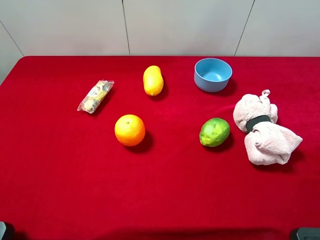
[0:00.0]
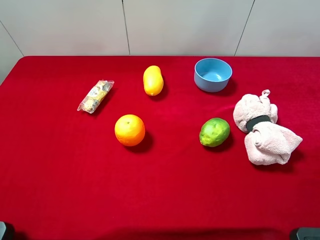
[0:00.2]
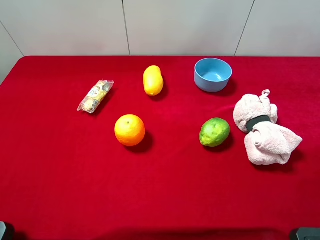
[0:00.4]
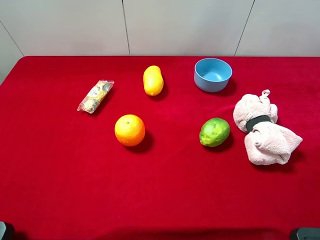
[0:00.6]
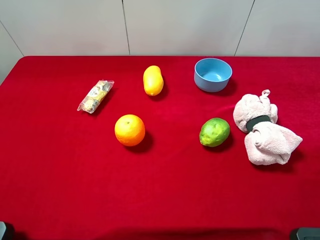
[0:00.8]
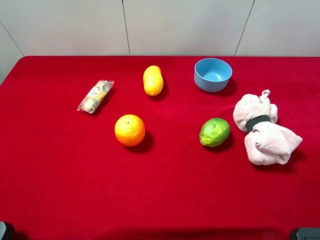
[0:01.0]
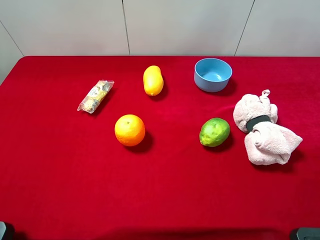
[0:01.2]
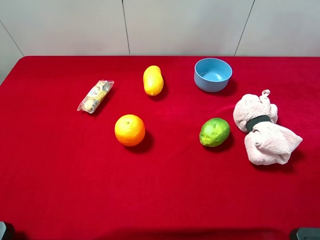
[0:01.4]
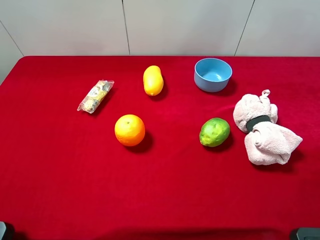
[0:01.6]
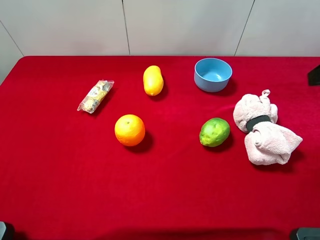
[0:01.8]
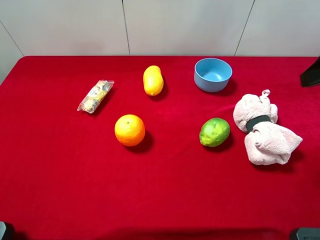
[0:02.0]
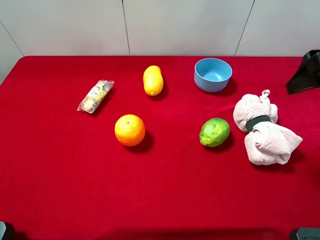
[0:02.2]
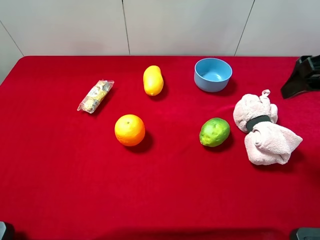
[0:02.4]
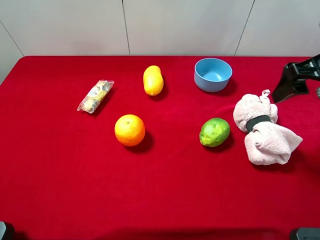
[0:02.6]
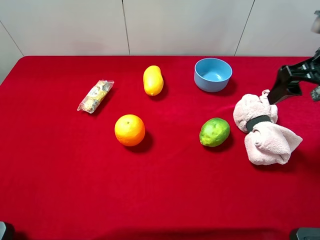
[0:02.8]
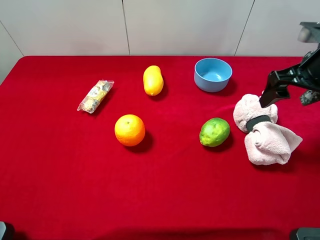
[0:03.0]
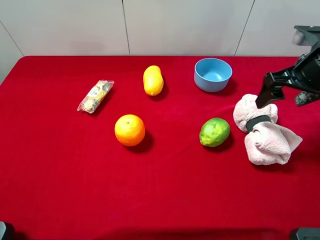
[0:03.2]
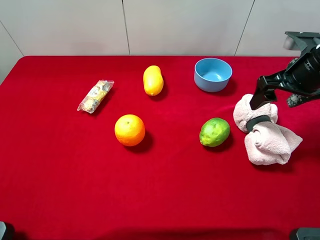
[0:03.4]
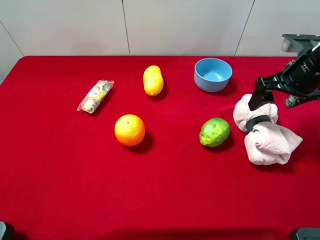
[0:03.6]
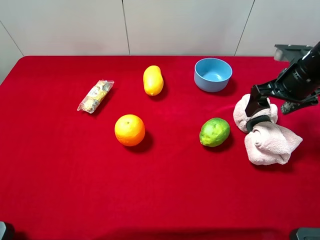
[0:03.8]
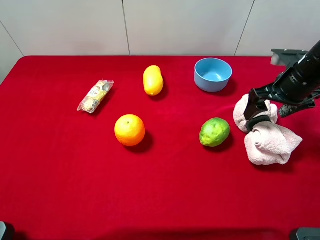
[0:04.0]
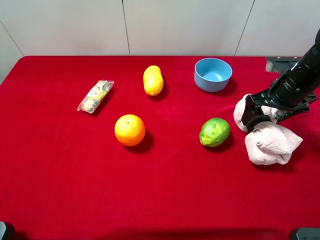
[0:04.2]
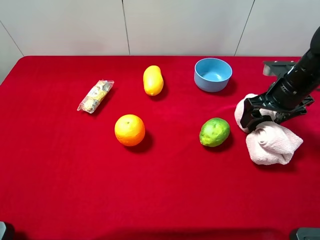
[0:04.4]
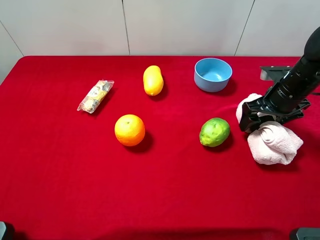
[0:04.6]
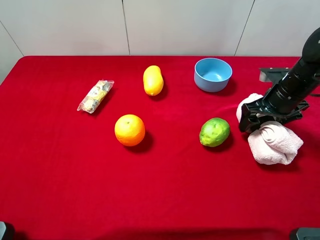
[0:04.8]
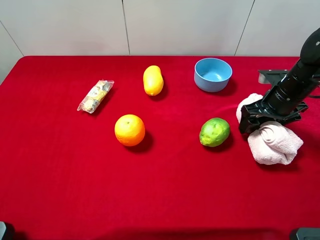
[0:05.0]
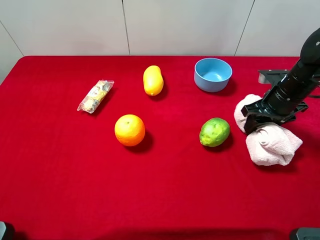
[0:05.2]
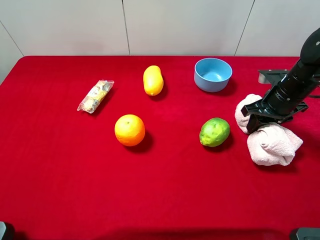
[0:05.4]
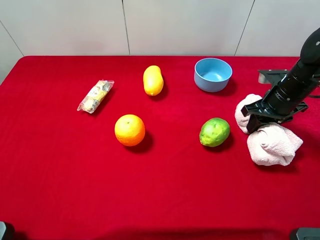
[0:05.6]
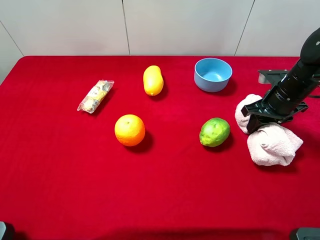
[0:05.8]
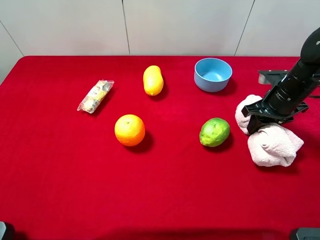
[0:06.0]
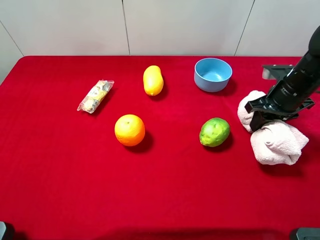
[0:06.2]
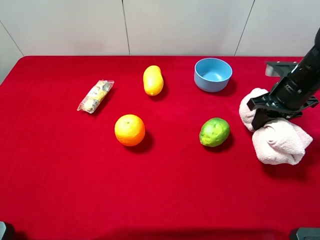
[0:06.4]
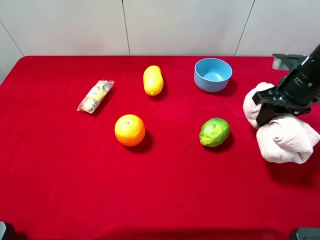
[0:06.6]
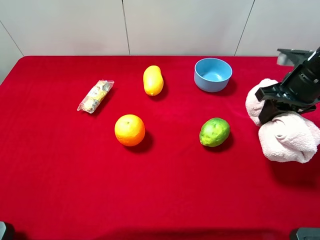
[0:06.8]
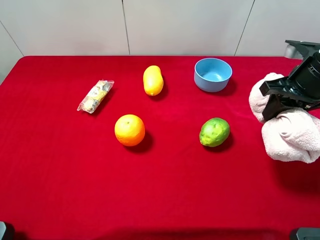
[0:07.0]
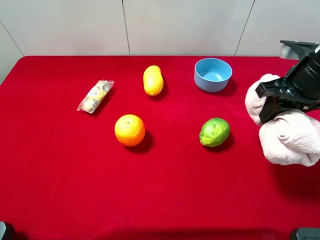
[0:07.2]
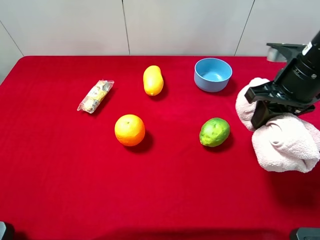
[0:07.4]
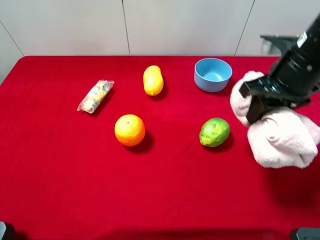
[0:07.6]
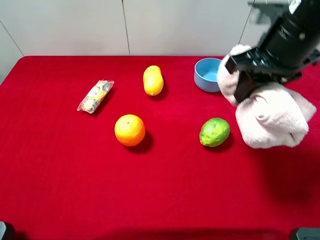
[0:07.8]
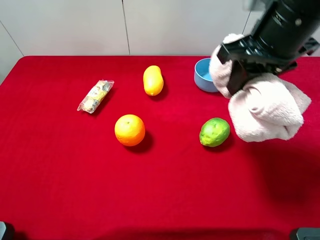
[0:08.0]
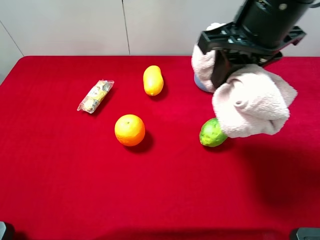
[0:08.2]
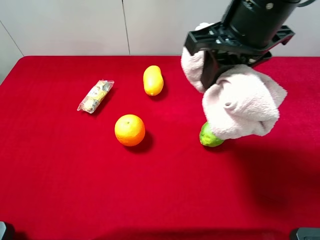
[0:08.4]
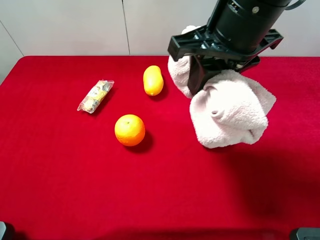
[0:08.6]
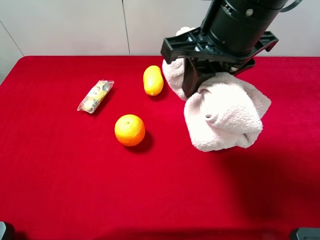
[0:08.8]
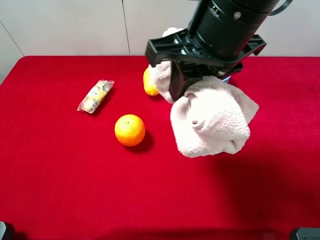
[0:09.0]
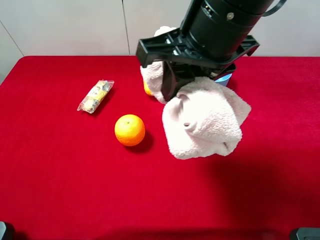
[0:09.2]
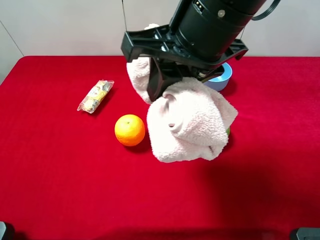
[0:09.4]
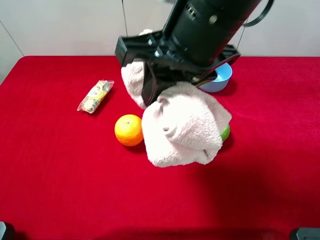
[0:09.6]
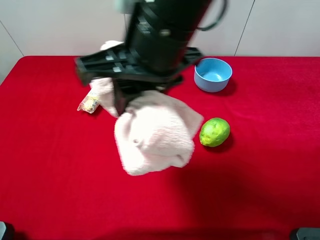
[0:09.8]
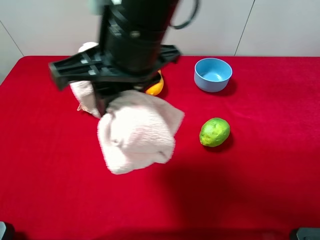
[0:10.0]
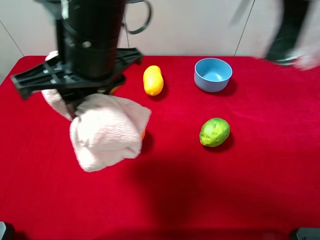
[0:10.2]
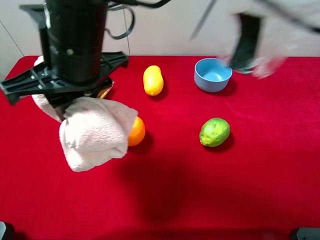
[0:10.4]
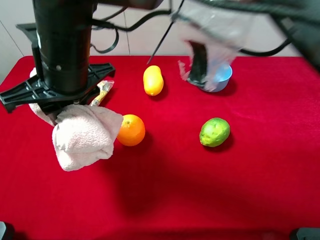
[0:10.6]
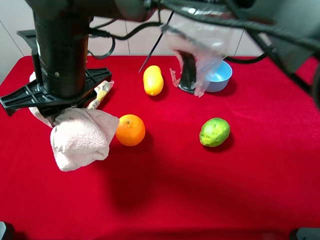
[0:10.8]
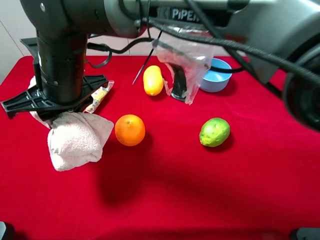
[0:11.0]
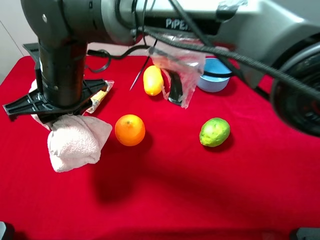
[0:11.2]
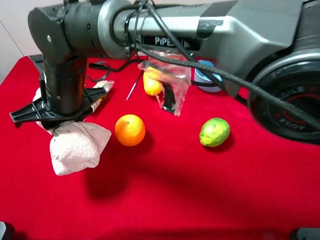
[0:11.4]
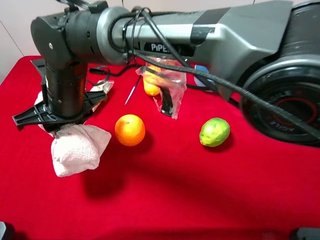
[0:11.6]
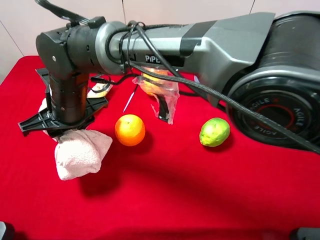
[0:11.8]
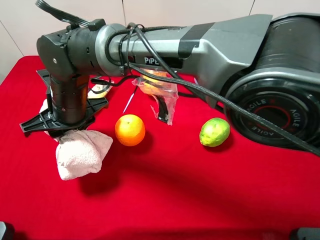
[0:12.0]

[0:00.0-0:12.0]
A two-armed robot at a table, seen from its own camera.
Task of the whole recording: the gripper move the object.
Step, 0:00.0 to 0:05.2: Grasp the pink towel with the right gripper.
0:01.6 to 0:03.0: The right gripper heads forward and downward, covering approximately 15 cm.
0:03.0 to 0:04.4: The right gripper moves downward, about 10 cm.
0:04.4 to 0:06.0: The right gripper closes.
0:06.0 to 0:07.6: The right gripper travels upward, to the left and backward by some 15 cm.
0:07.6 to 0:09.0: The right gripper travels to the left and upward by some 15 cm.
0:09.0 to 0:10.4: The right gripper goes roughly 15 cm to the left.
0:10.4 to 0:12.0: The right gripper is displaced downward and to the left by about 15 cm.

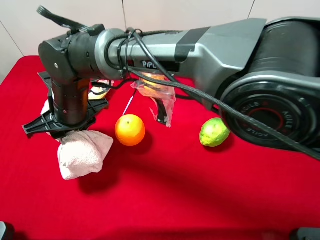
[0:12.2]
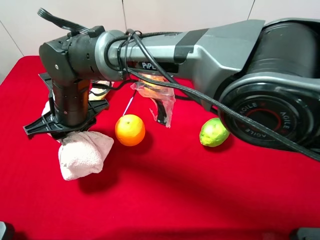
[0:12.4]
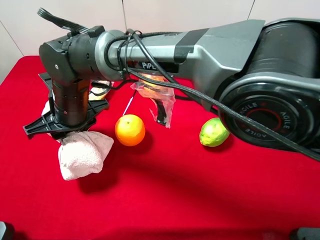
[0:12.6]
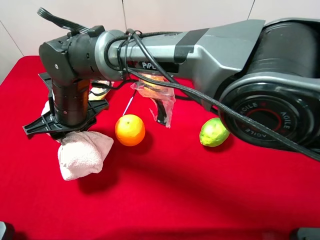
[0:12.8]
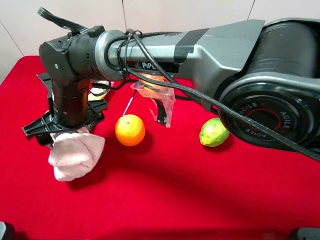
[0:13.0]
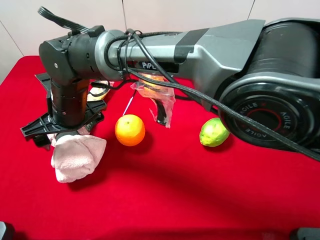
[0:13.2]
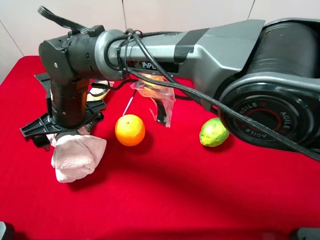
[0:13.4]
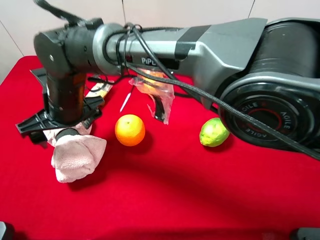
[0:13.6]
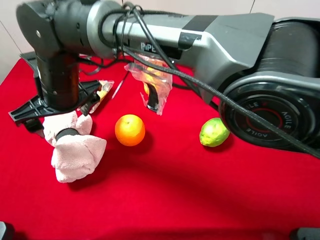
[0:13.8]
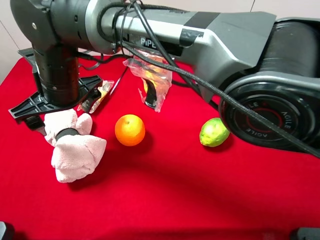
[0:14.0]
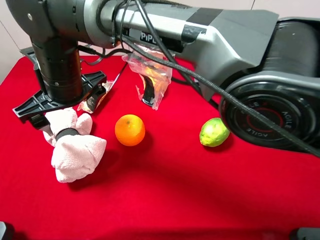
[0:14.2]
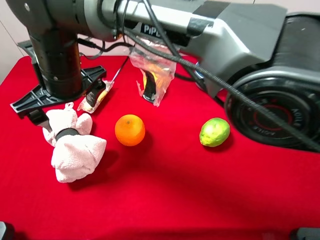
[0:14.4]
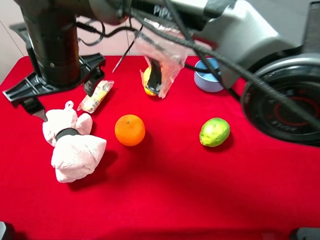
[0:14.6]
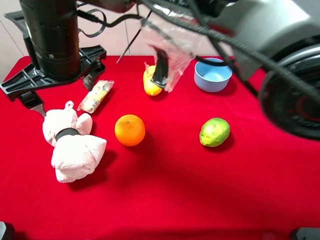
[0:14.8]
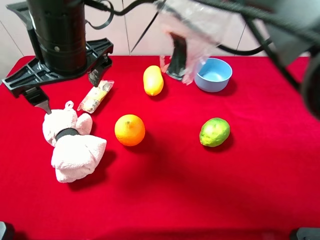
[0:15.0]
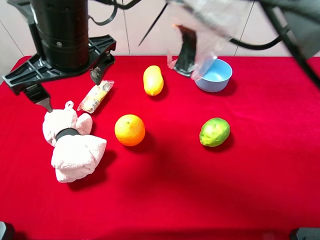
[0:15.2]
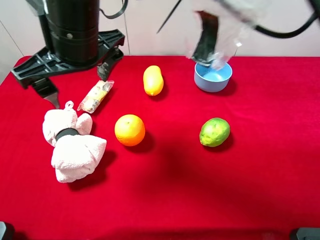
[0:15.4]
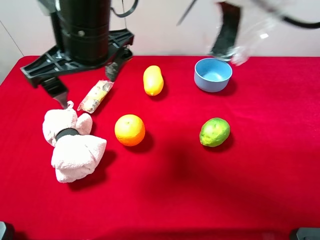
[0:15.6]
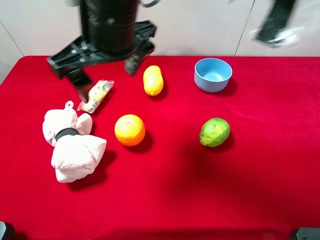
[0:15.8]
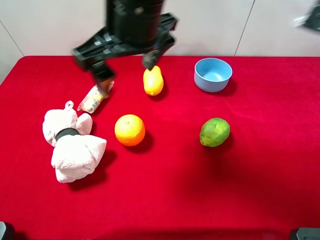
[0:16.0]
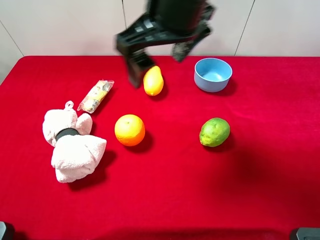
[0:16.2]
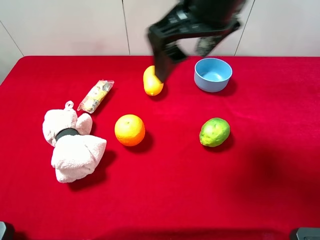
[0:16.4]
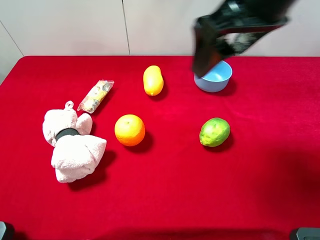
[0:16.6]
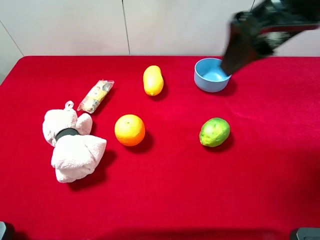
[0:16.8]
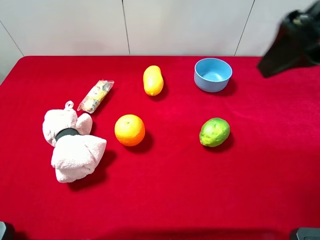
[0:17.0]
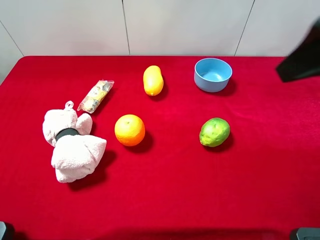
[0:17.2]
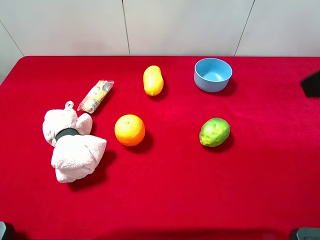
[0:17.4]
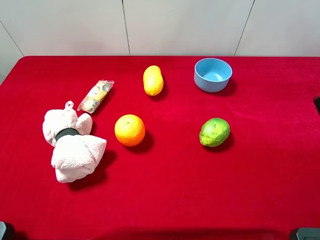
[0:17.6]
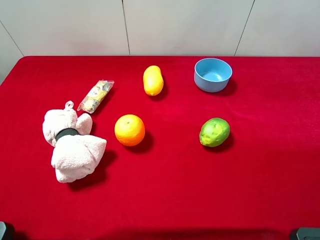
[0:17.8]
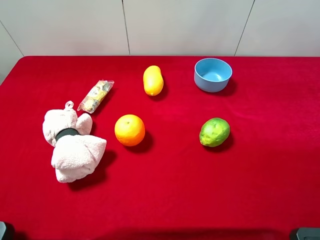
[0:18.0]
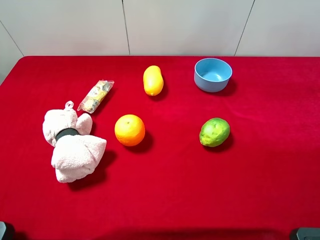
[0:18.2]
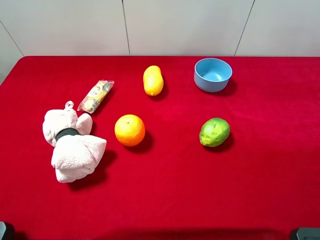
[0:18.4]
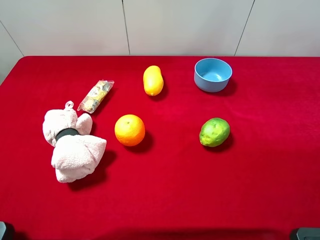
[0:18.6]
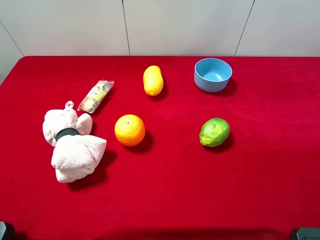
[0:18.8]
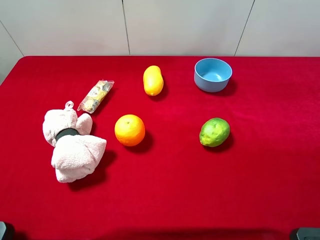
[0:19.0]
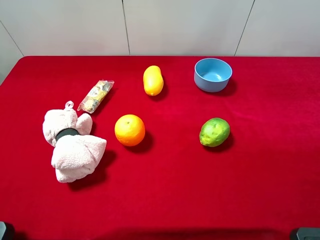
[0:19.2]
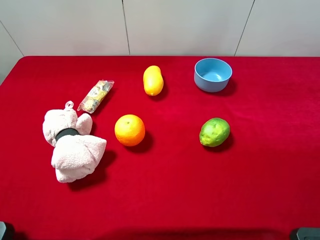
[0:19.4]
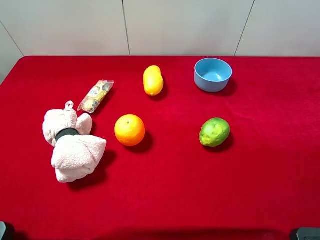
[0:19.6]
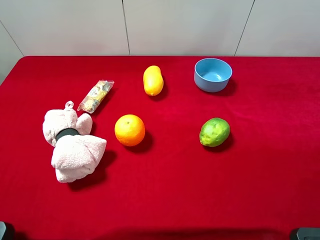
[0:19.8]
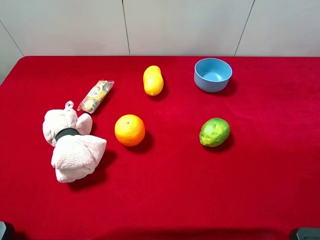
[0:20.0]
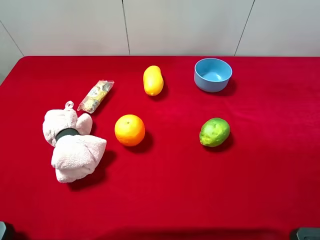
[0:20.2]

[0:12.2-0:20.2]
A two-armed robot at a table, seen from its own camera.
Task of the whole recording: the gripper move the object.
0:12.2 to 0:13.8: The right gripper opens up.
0:13.8 to 0:15.4: The right gripper heads upward and to the right, covering roughly 10 cm.
0:15.4 to 0:17.0: The right gripper heads to the right, covering some 30 cm.
0:17.0 to 0:18.6: The right gripper is displaced backward, to the right and downward by approximately 20 cm.

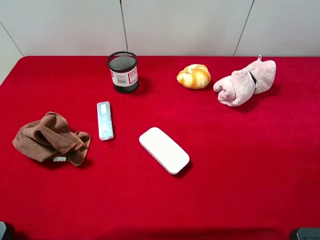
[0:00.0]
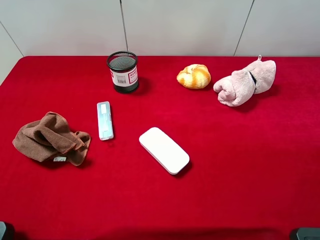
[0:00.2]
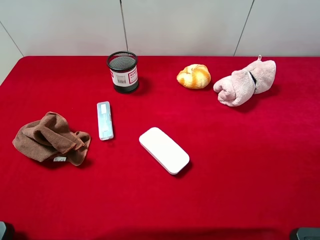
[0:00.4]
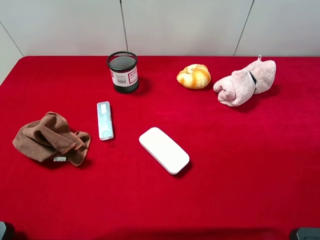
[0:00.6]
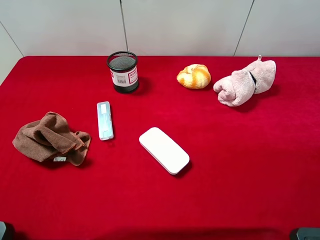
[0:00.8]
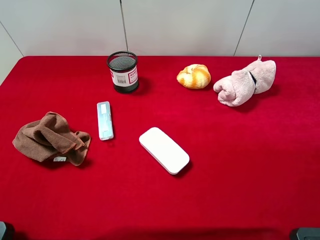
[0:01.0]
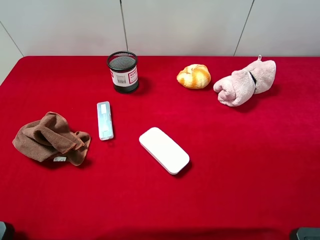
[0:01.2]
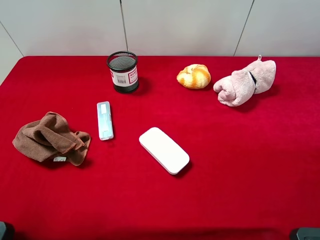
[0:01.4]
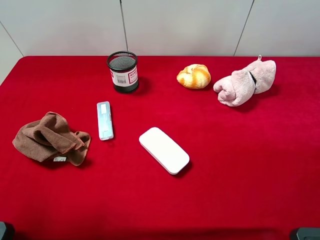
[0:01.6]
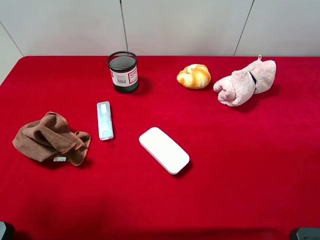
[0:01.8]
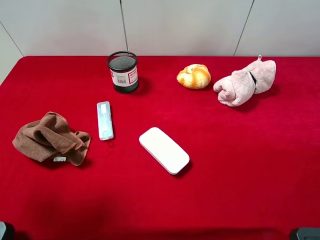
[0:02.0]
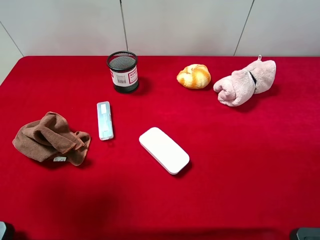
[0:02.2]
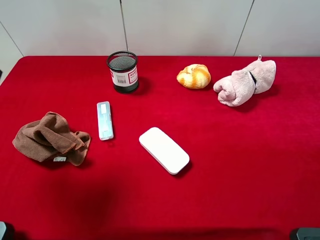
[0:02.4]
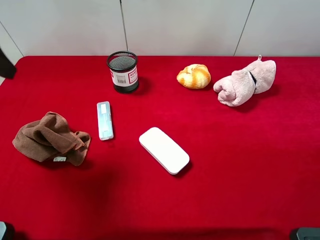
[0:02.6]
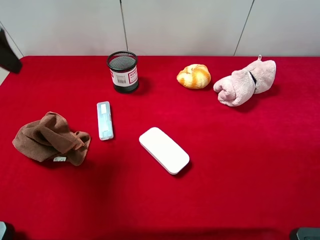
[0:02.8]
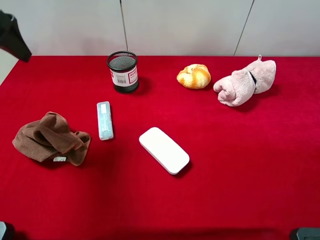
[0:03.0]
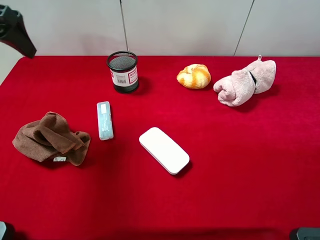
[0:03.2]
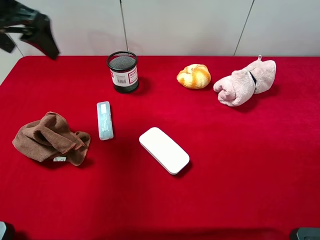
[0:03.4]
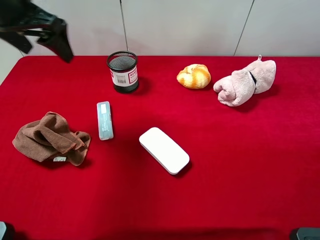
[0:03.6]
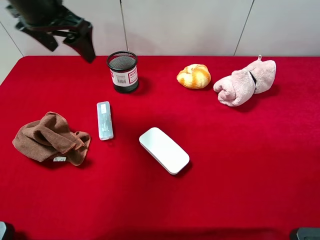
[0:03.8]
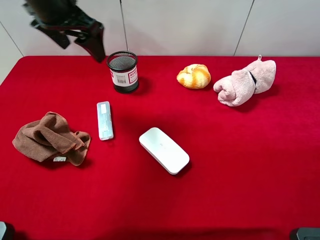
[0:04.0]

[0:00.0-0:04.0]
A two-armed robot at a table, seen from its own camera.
Task of the whole recording: the gripper move the object.
0:01.4 to 0:02.6: The left gripper travels forward by some 15 cm.
0:02.6 to 0:04.0: The left gripper goes approximately 20 cm to the right and forward.
